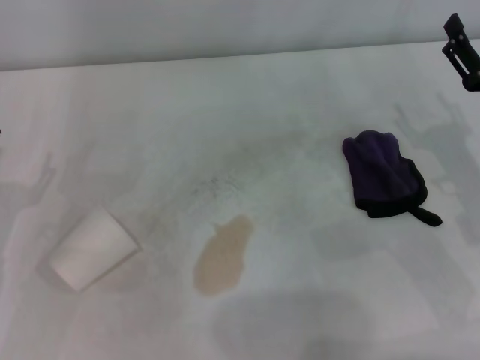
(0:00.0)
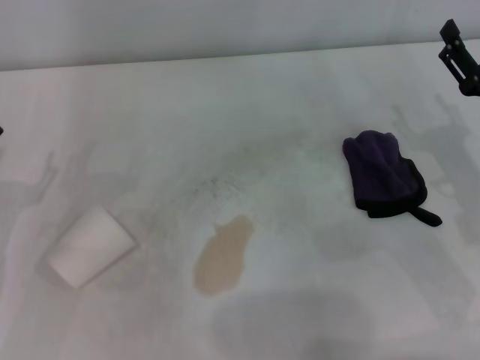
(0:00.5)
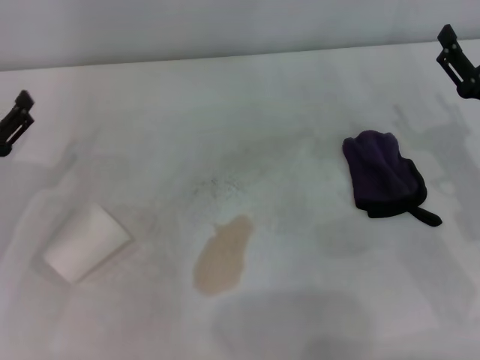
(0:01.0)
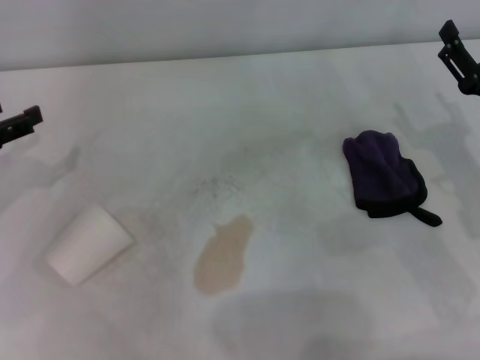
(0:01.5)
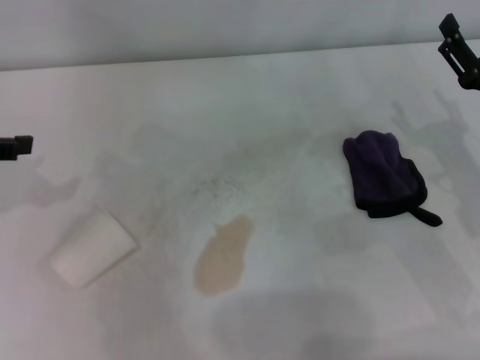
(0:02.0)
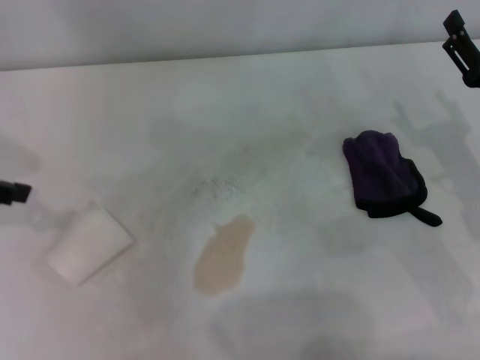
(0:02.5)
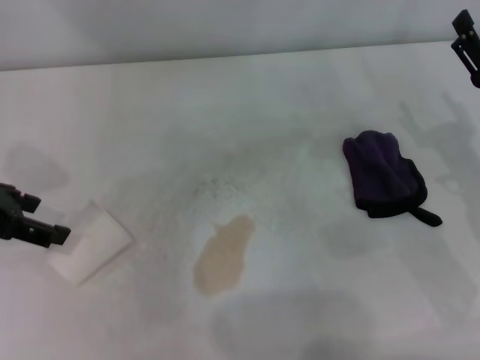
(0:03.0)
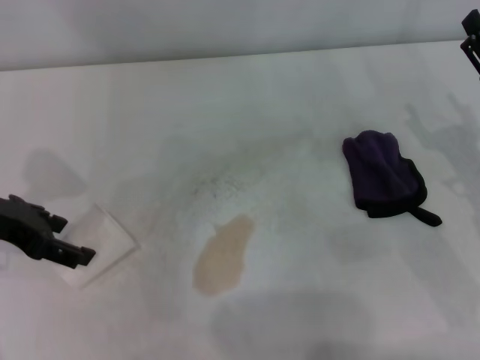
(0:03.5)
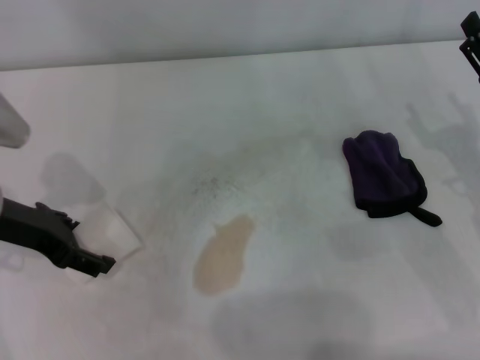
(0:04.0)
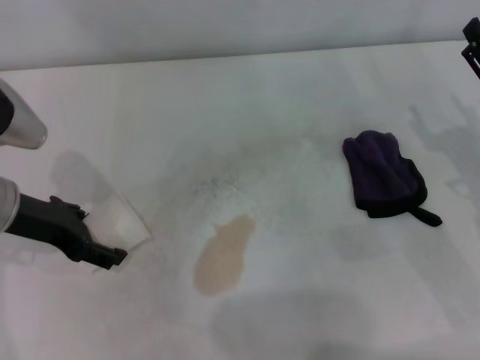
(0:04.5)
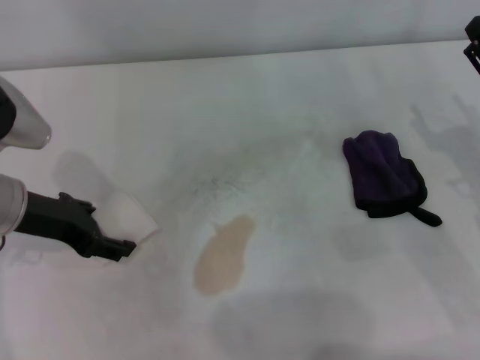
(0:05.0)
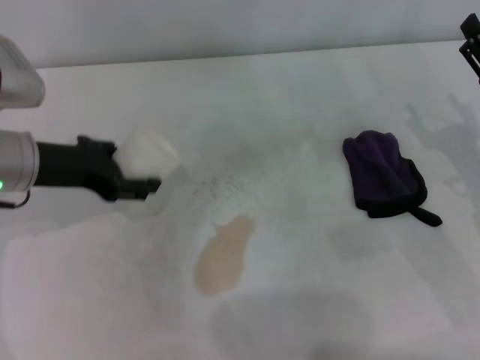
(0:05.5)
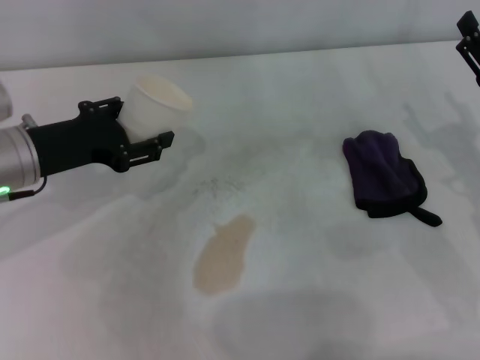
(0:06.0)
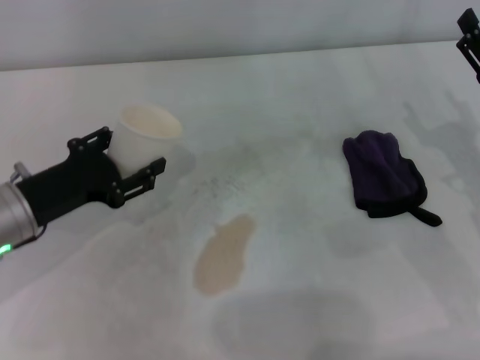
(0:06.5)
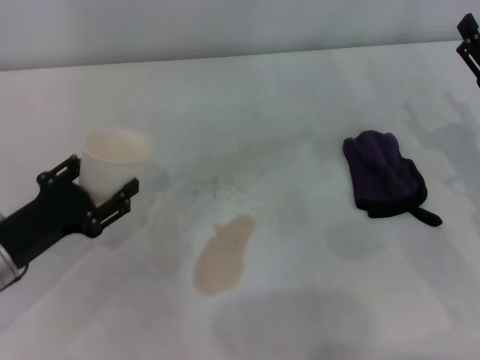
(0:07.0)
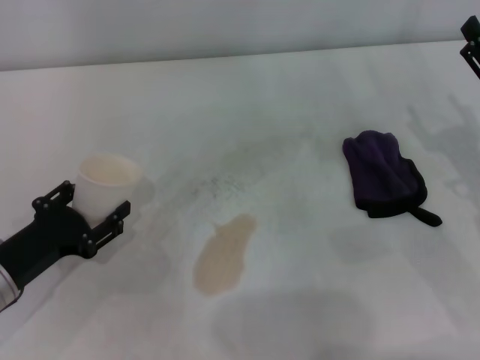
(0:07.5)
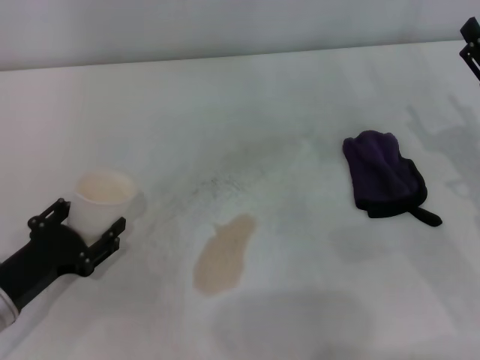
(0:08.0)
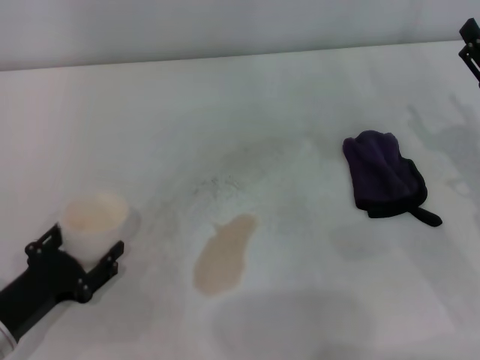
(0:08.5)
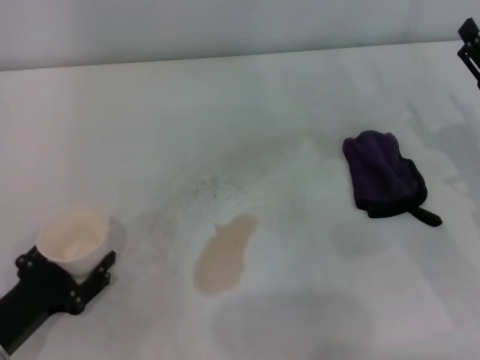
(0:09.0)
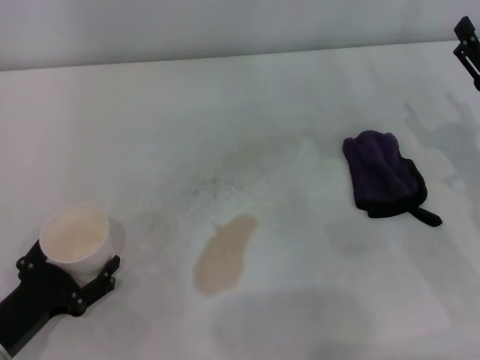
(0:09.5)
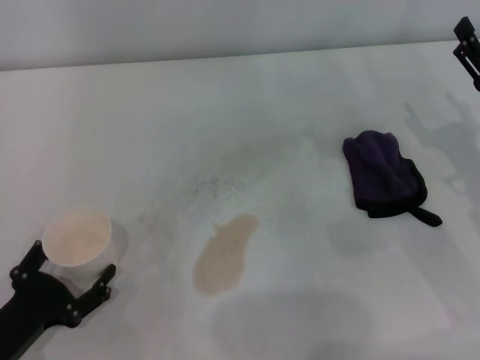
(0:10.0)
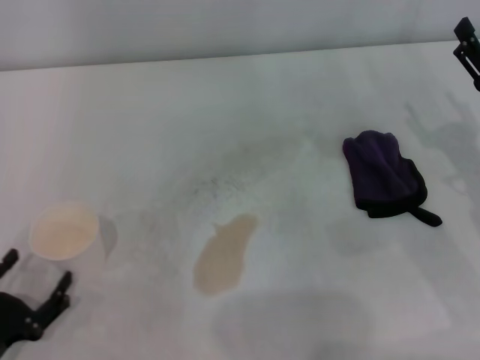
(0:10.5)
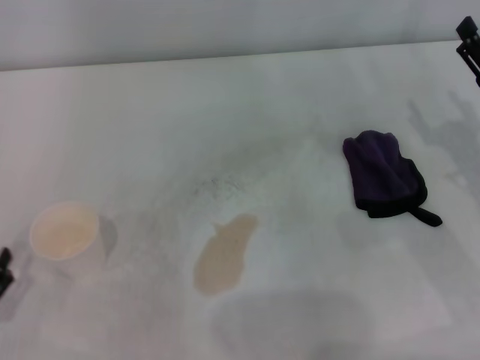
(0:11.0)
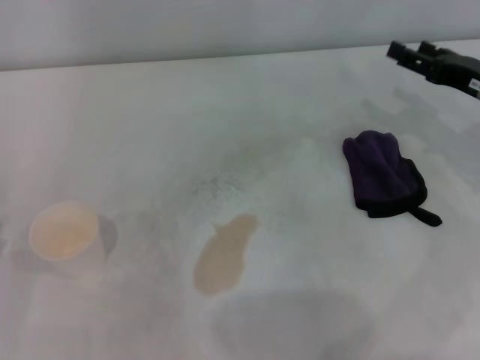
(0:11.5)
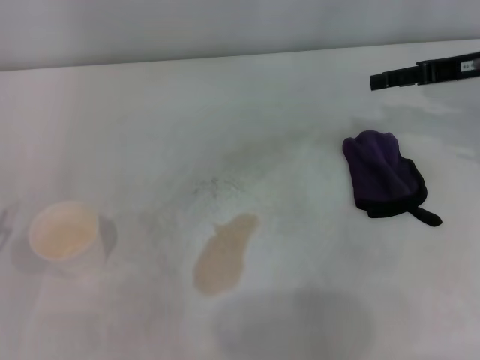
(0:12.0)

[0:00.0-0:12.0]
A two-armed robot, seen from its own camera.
Step, 0:00.0 to 0:04.5: Grasp the paper cup with the left gripper.
Step, 0:05.0 to 0:09.0: Stand the paper cup upright with the left gripper.
0:02.0 to 0:04.0: The left gripper moves to the right and downward, about 10 cm.
0:04.0 to 0:06.0: The left gripper closes up.
0:06.0 to 0:08.0: The left gripper heads backward and downward, covering about 15 cm.
0:08.0 to 0:10.0: The left gripper travels backward by approximately 5 cm, and opens its fingers.
0:10.0 to 0:12.0: The left gripper moves to the left, some 5 cm. The right gripper heads forward and upward, covering about 15 cm.

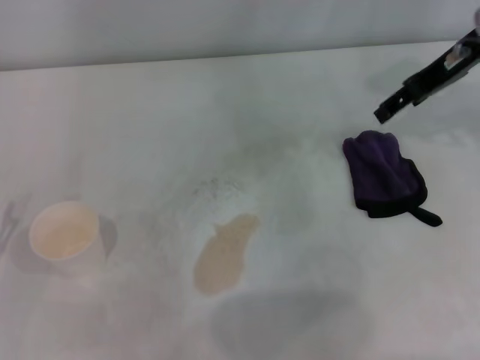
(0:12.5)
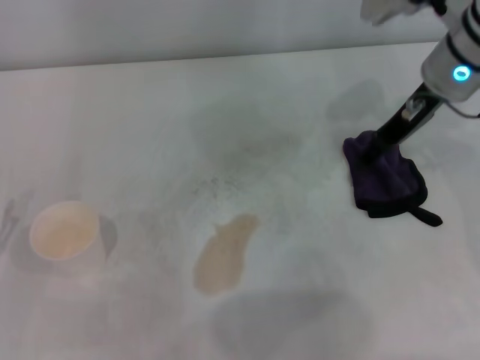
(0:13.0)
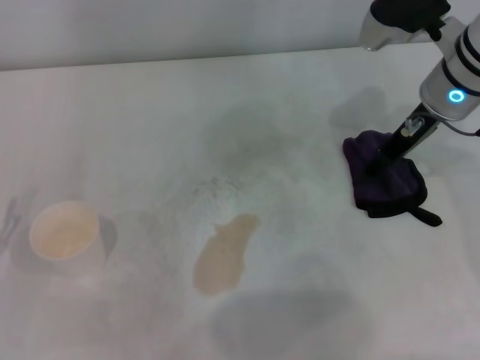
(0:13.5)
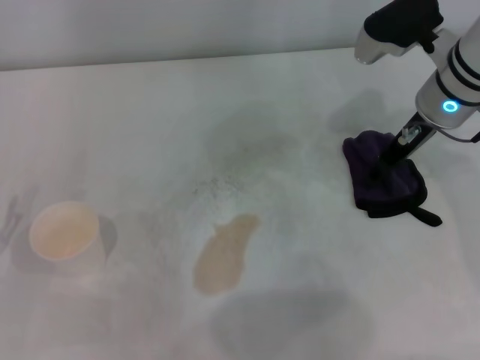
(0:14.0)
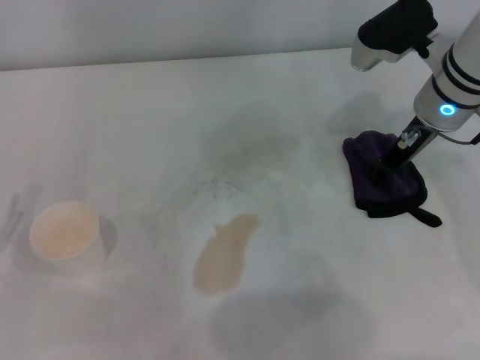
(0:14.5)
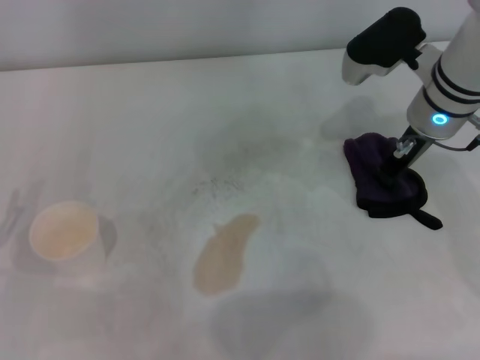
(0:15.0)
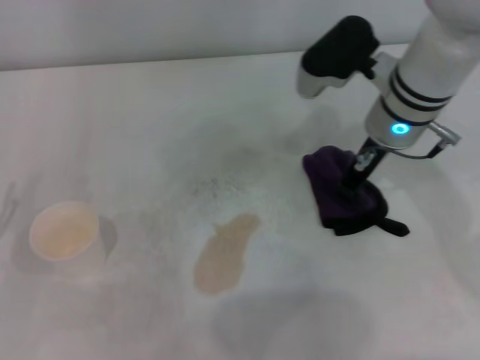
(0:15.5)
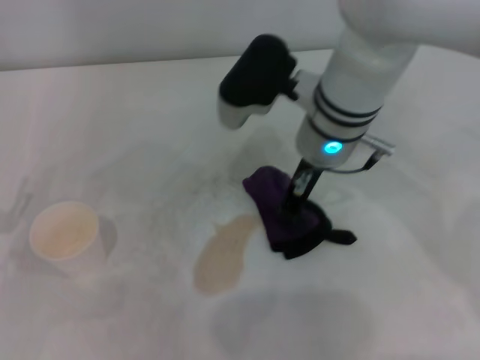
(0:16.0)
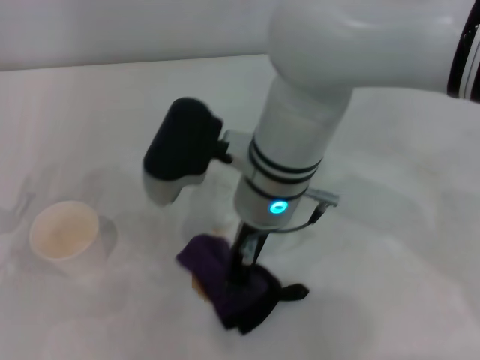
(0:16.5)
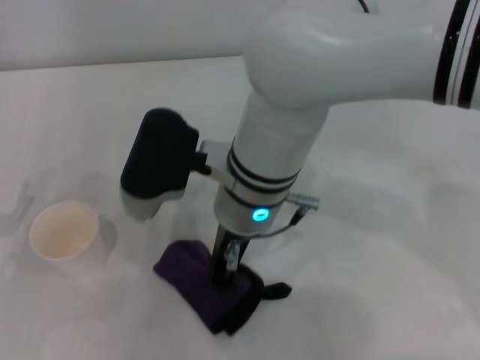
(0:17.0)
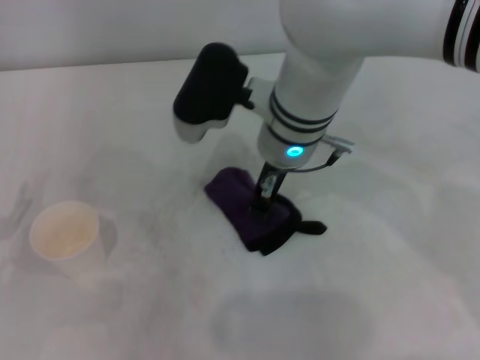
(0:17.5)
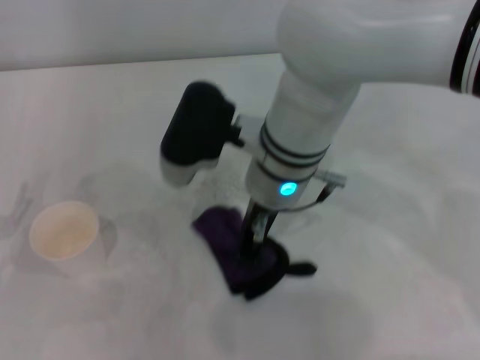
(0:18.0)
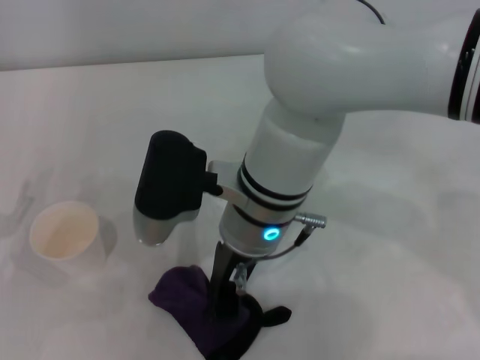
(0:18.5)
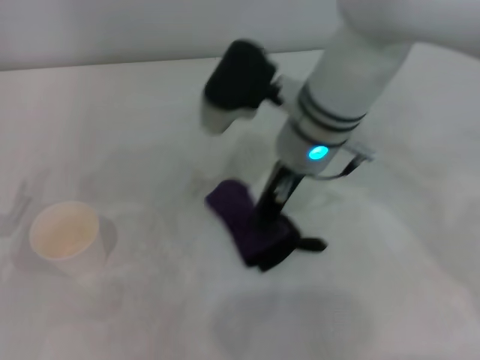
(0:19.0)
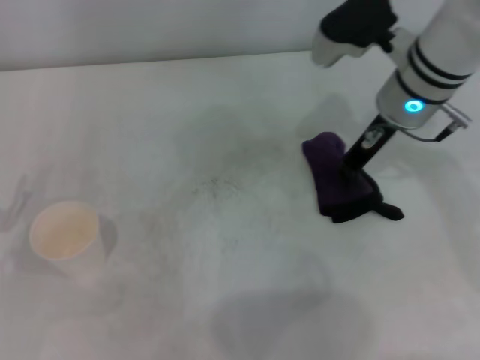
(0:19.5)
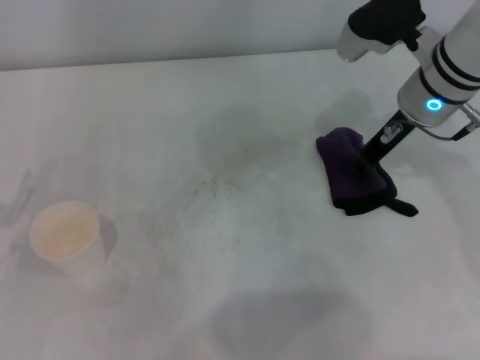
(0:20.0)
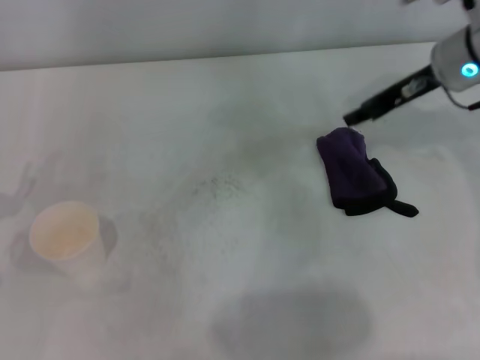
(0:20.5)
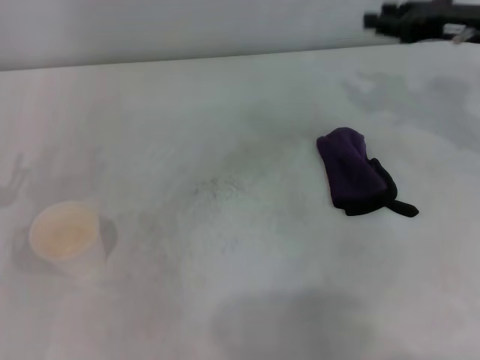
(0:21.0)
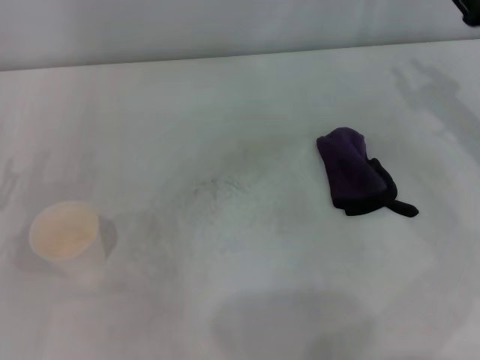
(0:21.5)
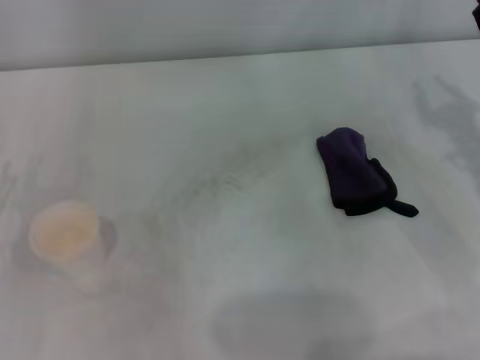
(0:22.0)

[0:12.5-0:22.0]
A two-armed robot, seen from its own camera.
Step, 0:12.5 to 0:15.0: Grasp the rag with the right gripper.
Step, 0:15.5 to 0:19.0: Wipe the stains off the table with the right gripper.
0:12.5 to 0:14.5: The right gripper travels downward and to the left by roughly 10 cm, and closes up.
0:14.5 to 0:16.5: The right gripper travels to the left and backward by roughly 20 cm, and closes.
0:18.0 to 0:20.0: The right gripper moves to the right, approximately 15 cm.
0:20.0 to 0:22.0: The right gripper goes some 15 cm to the right, backward and downward.
